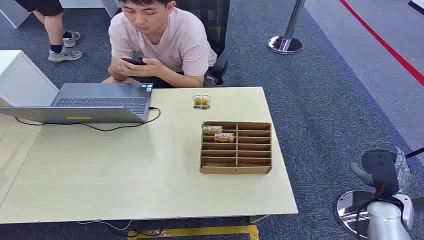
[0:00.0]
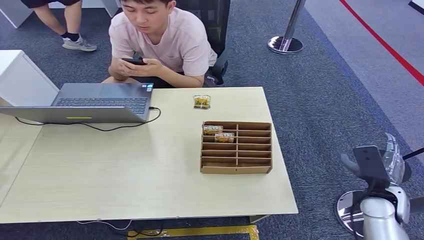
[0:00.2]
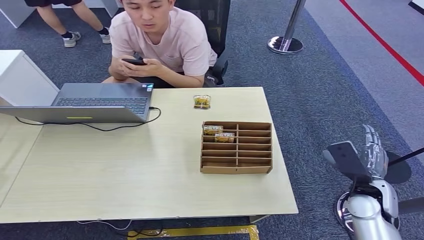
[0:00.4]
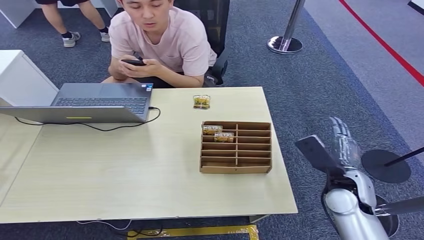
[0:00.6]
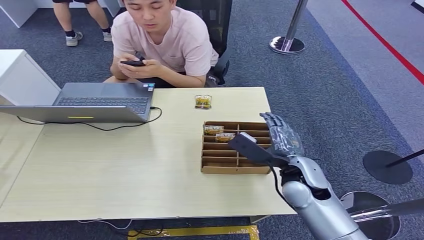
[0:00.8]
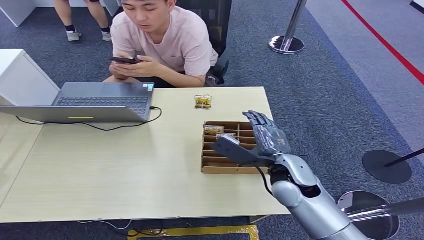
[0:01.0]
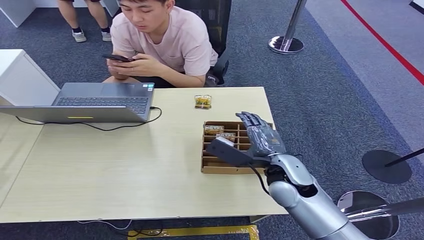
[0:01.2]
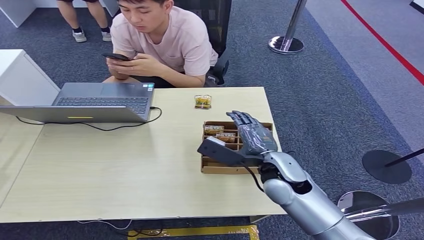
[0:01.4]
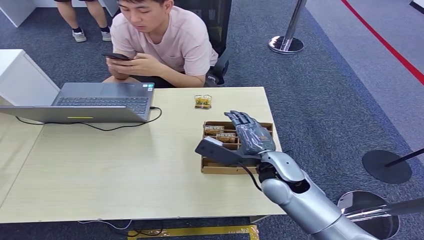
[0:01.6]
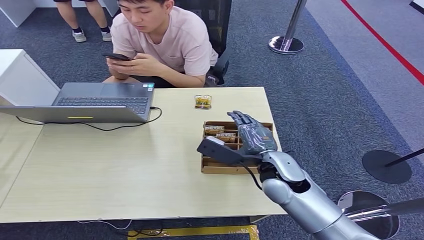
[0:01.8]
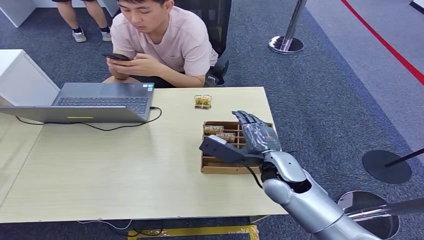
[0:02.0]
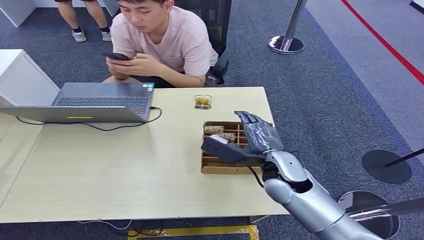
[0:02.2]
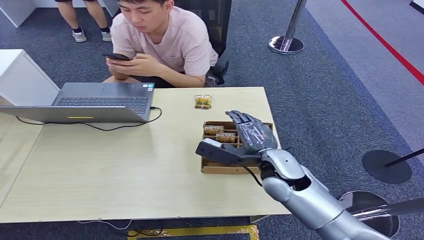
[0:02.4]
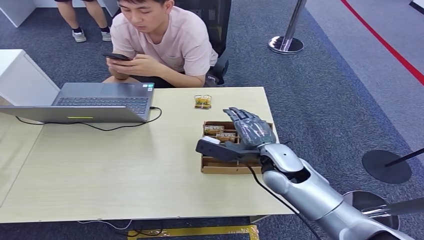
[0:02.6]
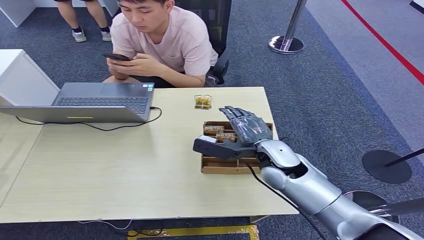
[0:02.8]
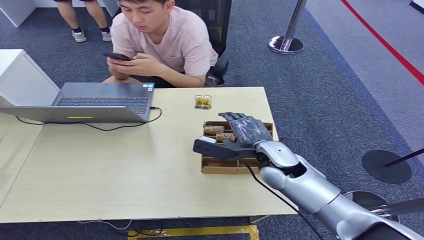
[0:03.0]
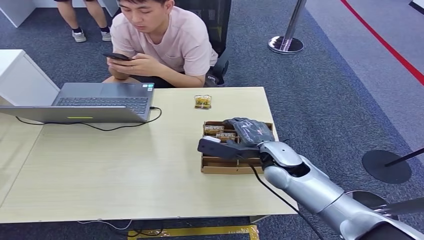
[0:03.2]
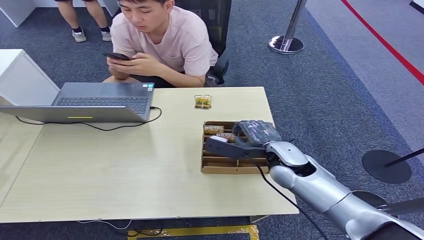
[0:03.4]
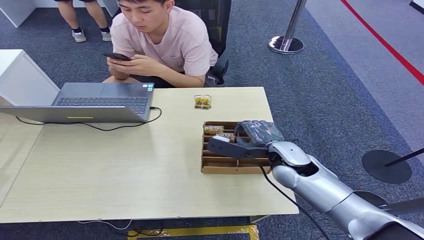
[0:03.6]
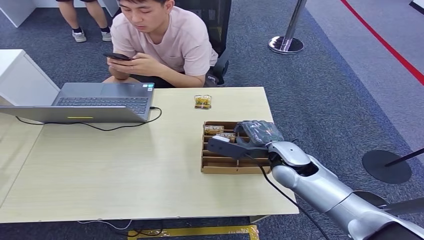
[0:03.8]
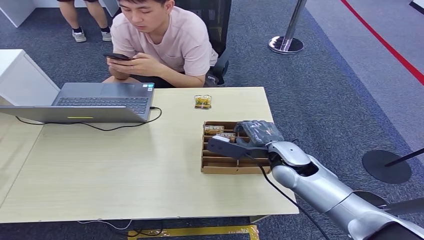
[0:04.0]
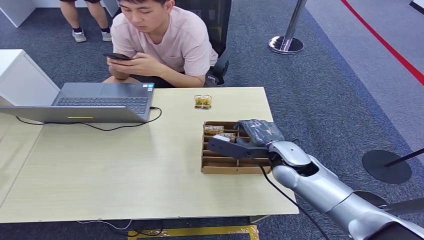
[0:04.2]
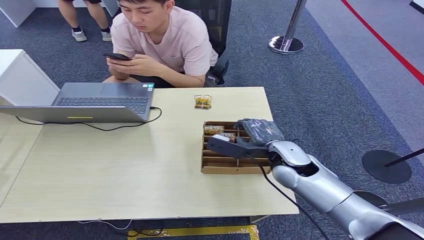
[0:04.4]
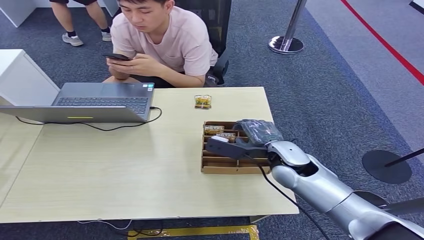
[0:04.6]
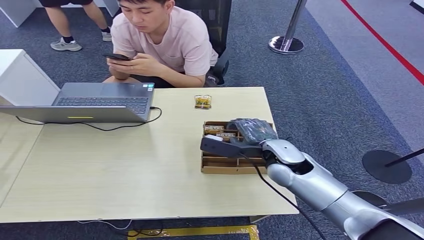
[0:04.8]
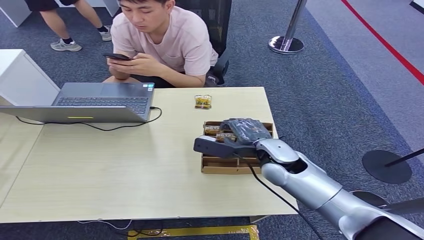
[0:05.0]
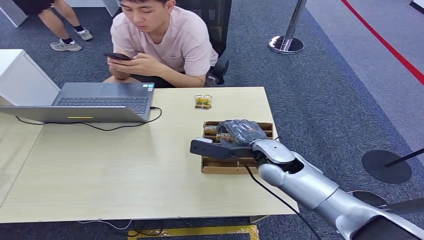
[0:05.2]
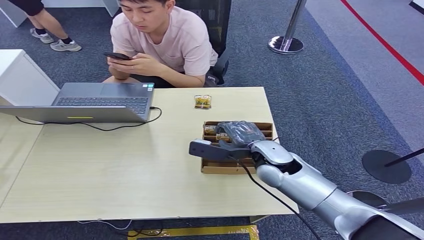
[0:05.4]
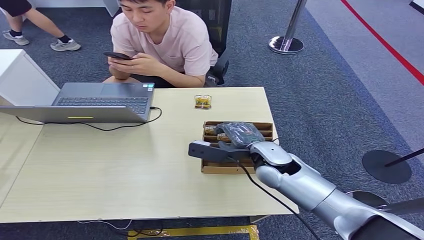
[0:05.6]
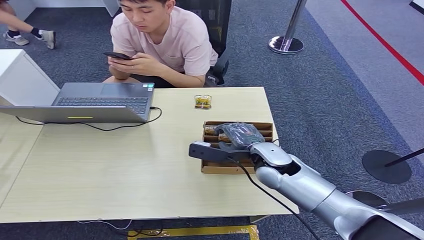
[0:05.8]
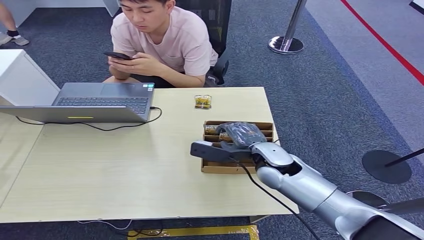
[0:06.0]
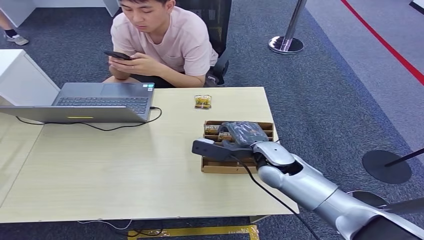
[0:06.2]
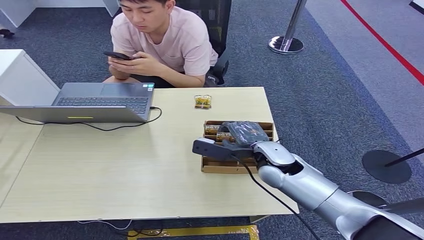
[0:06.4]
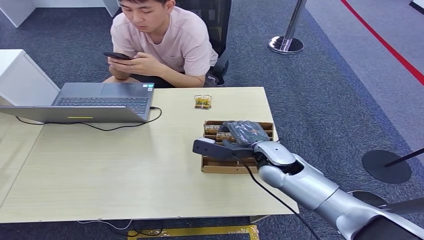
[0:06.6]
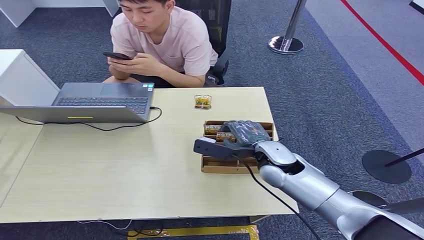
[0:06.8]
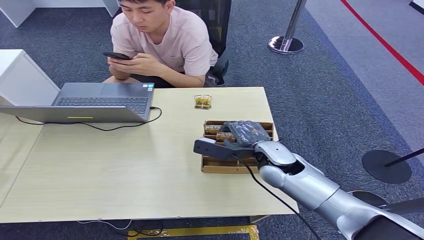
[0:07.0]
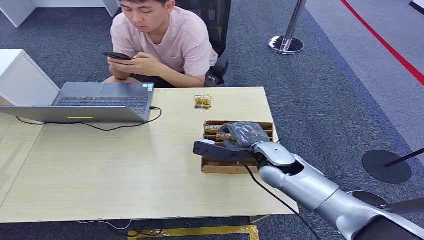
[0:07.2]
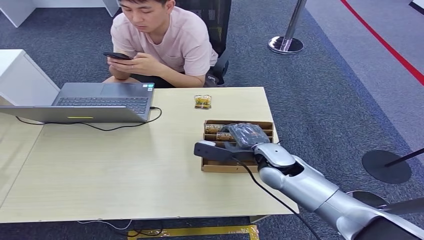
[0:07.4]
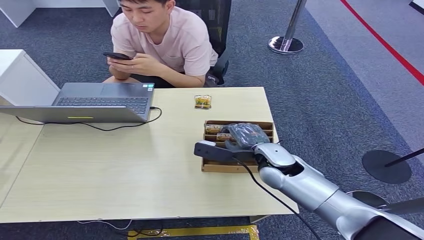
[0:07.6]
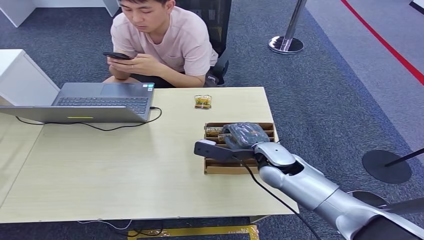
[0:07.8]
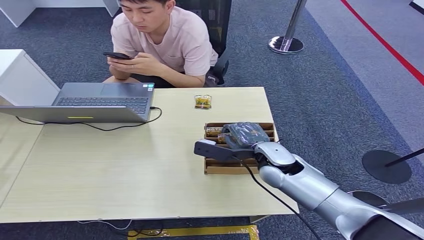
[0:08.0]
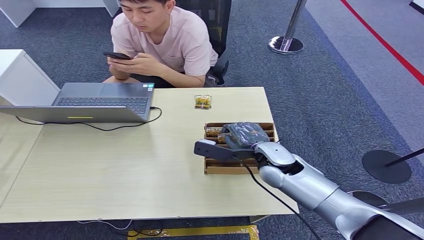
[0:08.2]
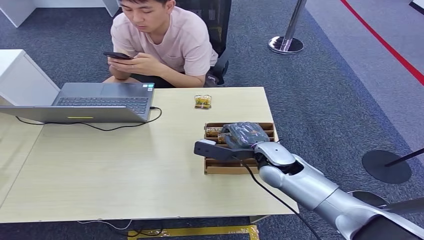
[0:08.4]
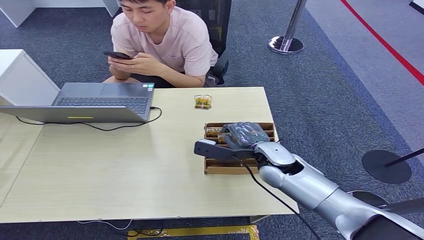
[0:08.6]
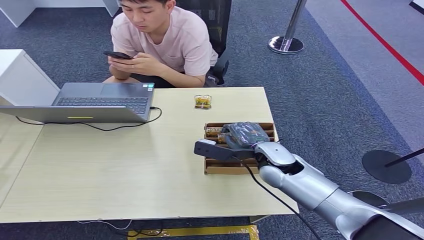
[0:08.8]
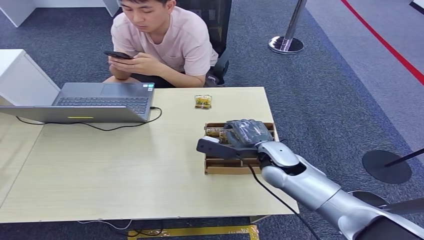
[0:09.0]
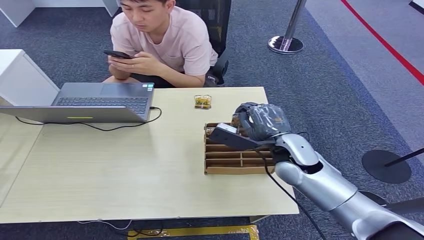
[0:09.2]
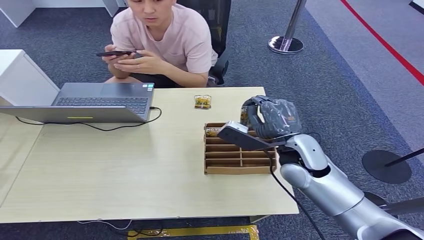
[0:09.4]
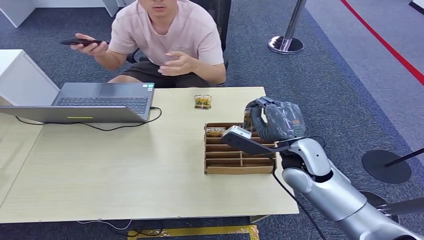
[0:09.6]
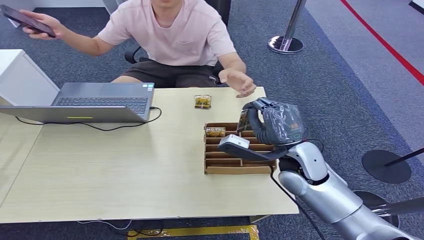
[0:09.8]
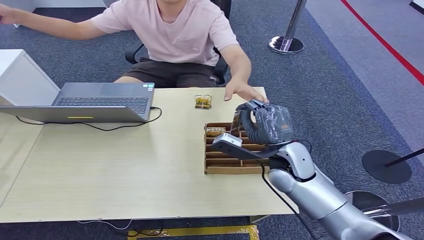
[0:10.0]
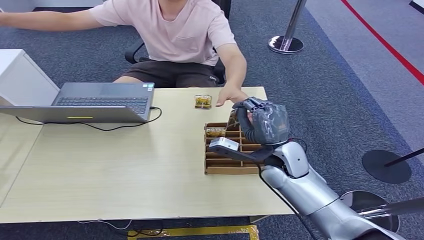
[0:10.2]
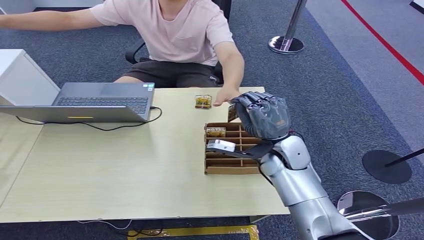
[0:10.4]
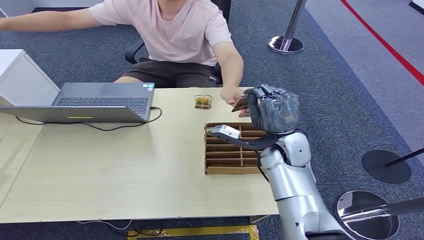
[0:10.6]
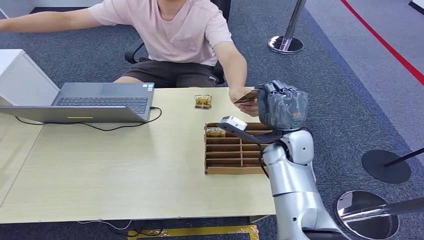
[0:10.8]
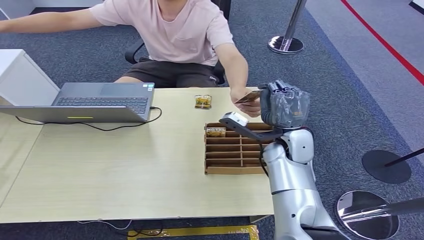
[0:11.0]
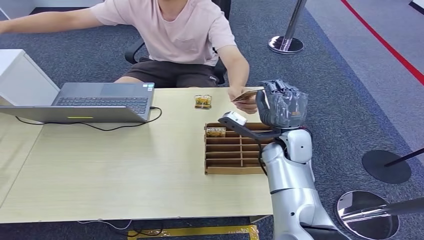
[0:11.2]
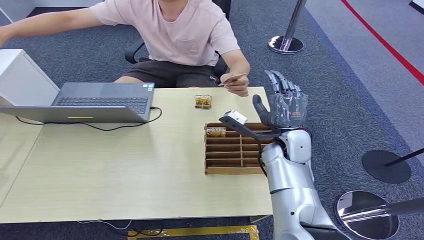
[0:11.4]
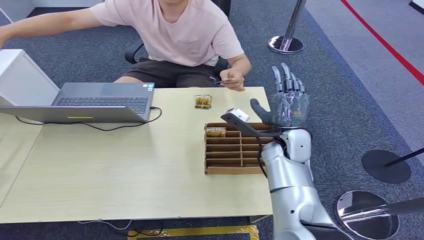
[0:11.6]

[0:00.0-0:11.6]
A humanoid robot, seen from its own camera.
Step, 0:00.0 to 0:09.8: Pick up the room card from the card holder.
Step, 0:10.0 to 0:11.6: Hand the room card to the target.
0:01.4 to 0:07.2: The hands stay close to where they were, moving slightly.
0:07.2 to 0:08.8: Neither hand changes place.
0:10.2 to 0:11.6: There are only small adjustments of the hands.

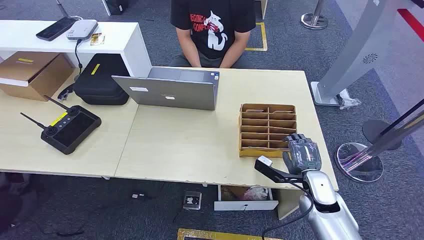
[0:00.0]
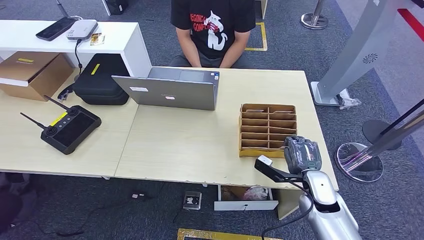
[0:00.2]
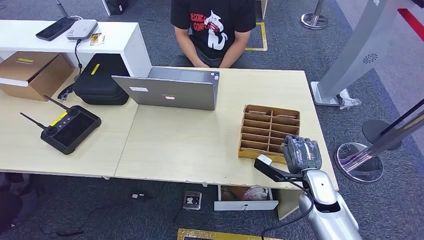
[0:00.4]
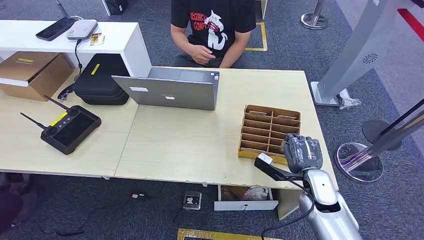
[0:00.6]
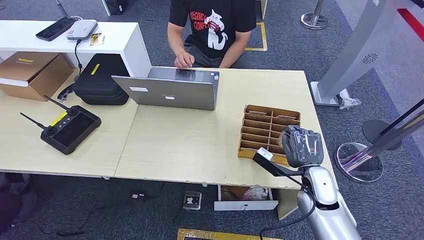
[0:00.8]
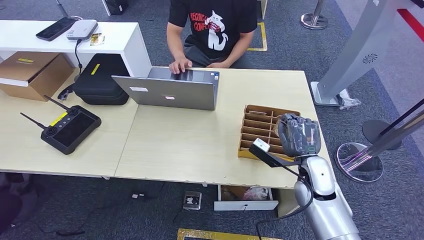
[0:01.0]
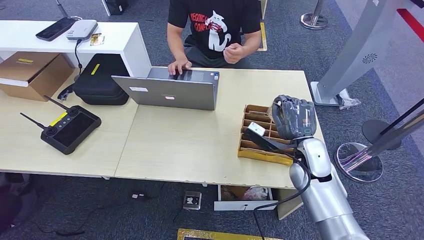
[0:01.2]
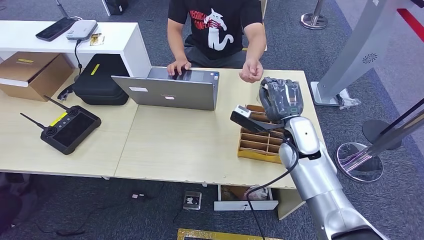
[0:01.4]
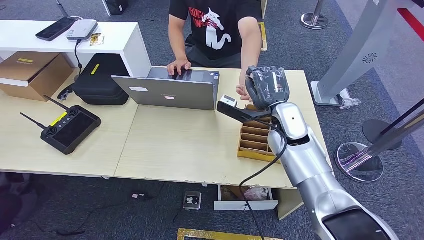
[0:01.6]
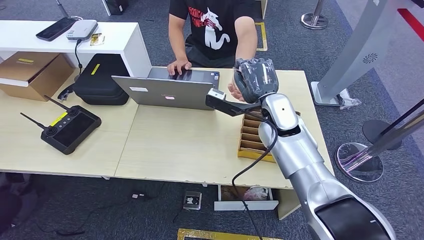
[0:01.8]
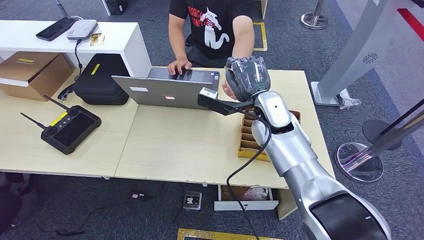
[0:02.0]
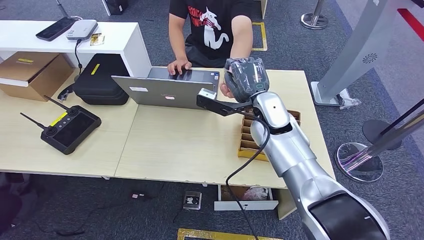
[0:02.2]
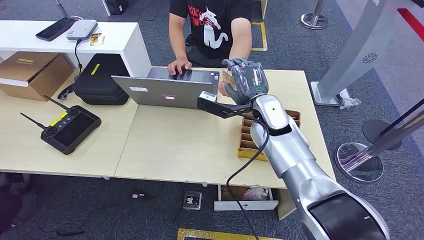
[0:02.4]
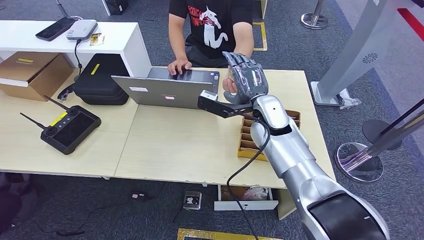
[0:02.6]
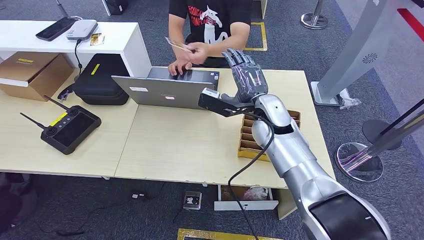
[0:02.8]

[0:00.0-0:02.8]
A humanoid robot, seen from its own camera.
Step, 0:00.0 to 0:01.2: Pick up the room card from the card holder.
Step, 0:01.4 to 0:02.8: Hand the room card to the target.
0:01.4 to 0:02.8: The hands stay close to where they were, moving slightly.
